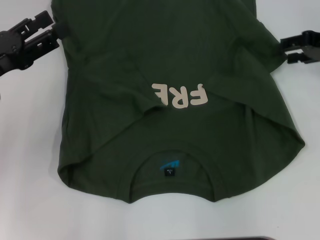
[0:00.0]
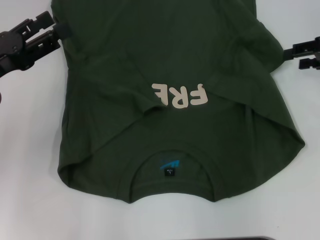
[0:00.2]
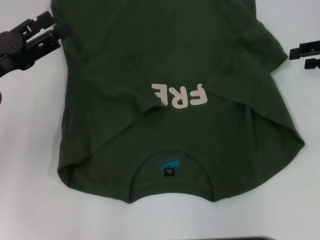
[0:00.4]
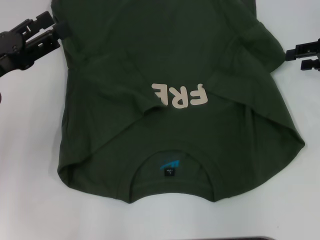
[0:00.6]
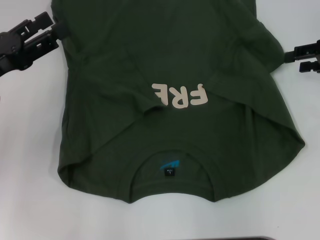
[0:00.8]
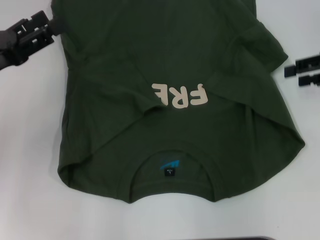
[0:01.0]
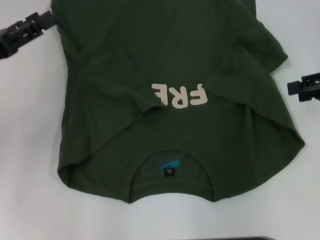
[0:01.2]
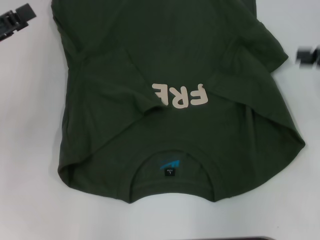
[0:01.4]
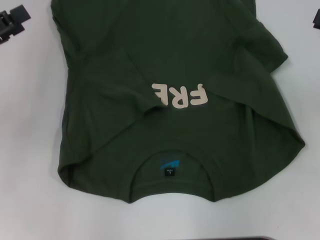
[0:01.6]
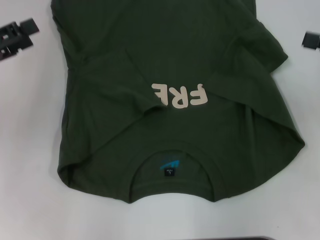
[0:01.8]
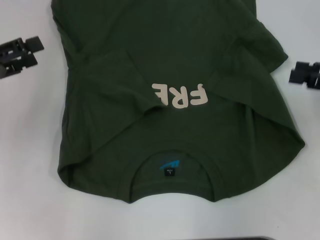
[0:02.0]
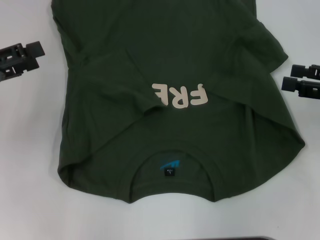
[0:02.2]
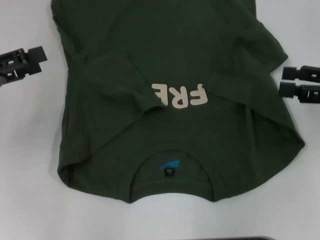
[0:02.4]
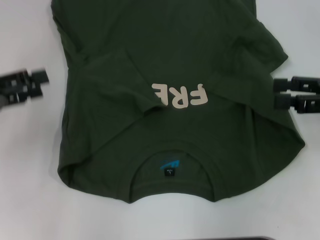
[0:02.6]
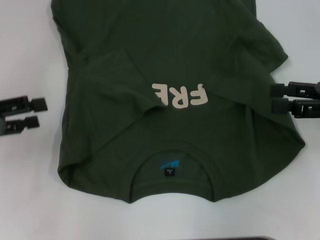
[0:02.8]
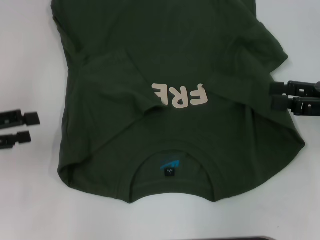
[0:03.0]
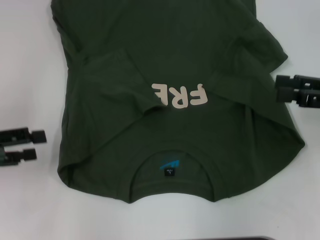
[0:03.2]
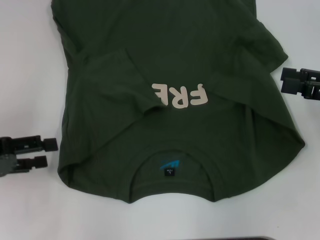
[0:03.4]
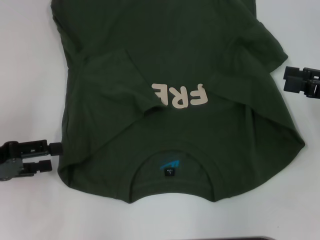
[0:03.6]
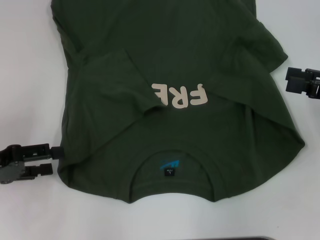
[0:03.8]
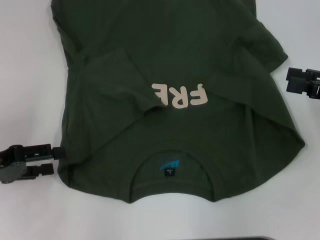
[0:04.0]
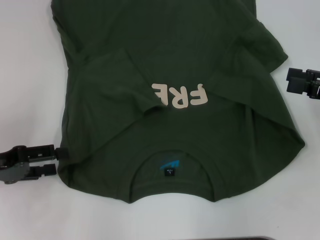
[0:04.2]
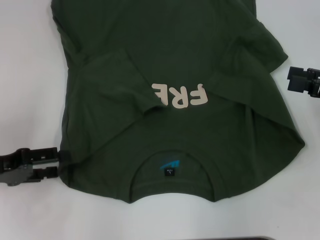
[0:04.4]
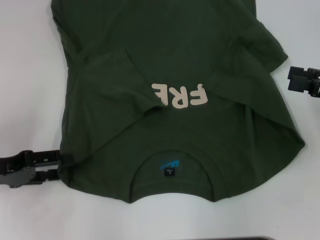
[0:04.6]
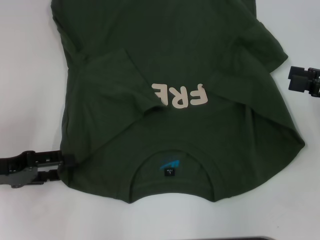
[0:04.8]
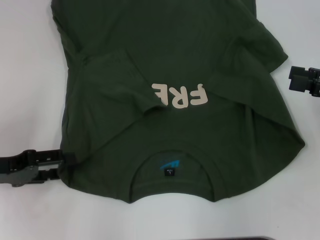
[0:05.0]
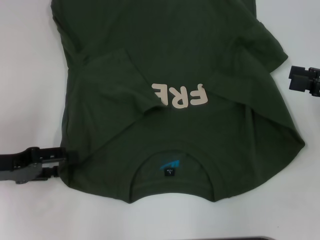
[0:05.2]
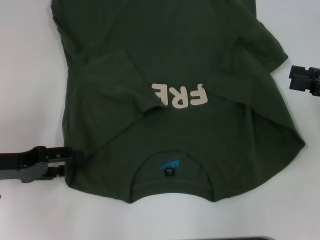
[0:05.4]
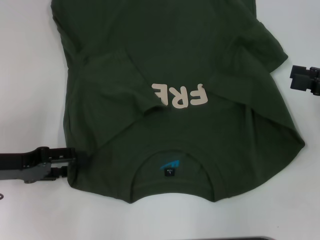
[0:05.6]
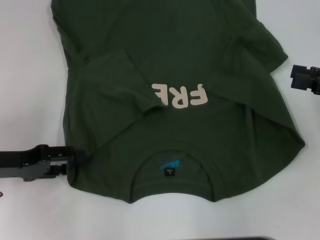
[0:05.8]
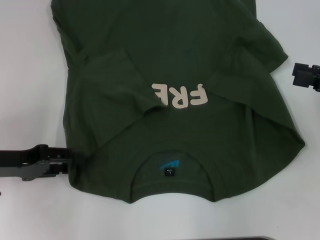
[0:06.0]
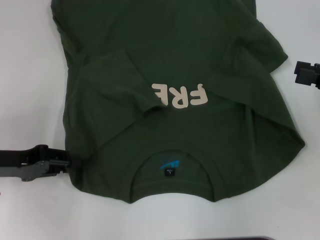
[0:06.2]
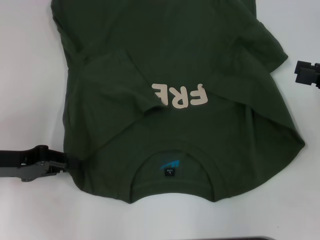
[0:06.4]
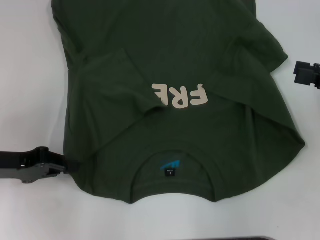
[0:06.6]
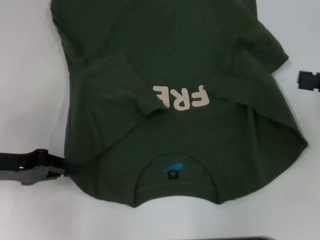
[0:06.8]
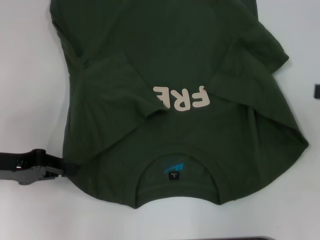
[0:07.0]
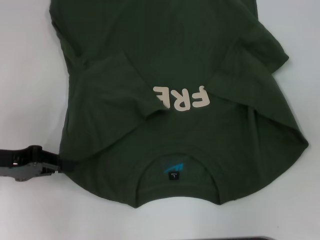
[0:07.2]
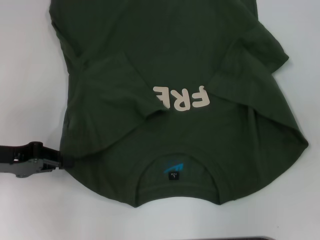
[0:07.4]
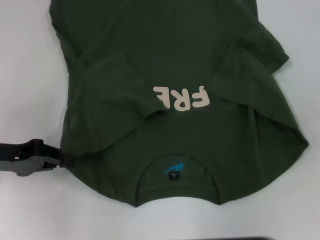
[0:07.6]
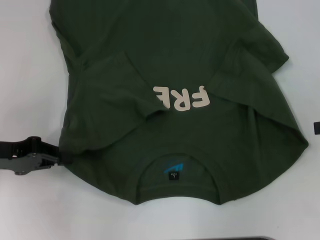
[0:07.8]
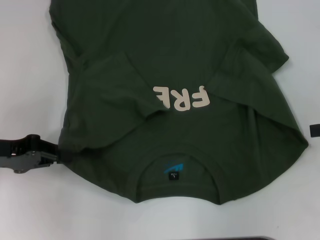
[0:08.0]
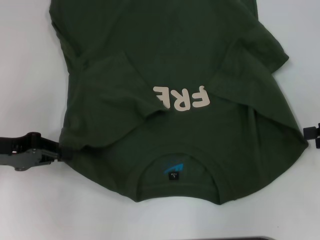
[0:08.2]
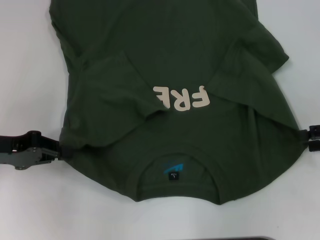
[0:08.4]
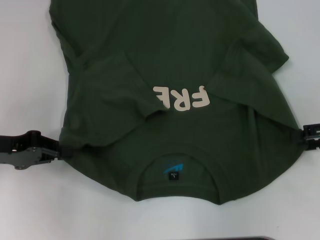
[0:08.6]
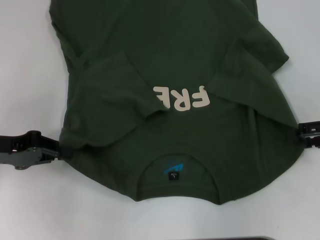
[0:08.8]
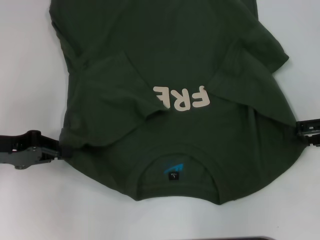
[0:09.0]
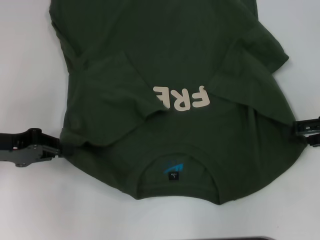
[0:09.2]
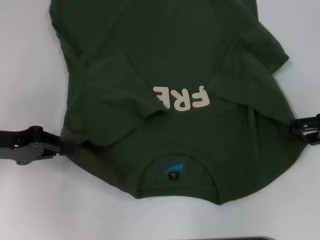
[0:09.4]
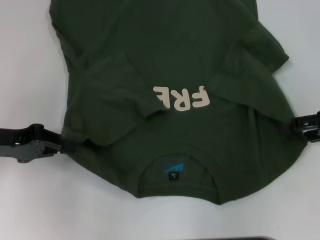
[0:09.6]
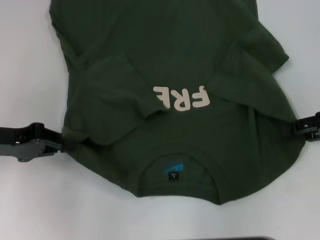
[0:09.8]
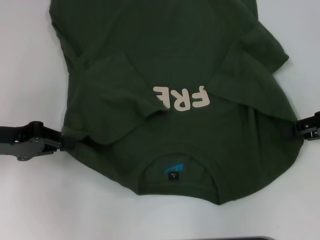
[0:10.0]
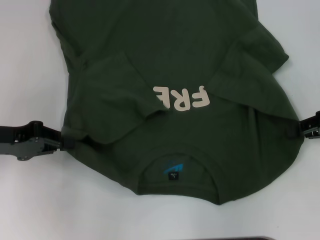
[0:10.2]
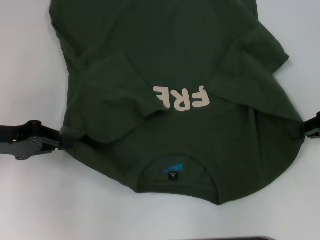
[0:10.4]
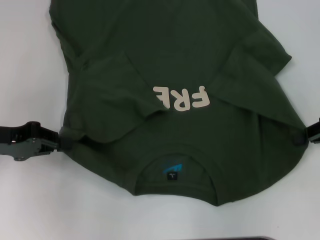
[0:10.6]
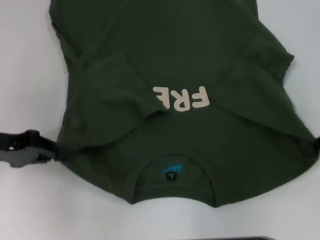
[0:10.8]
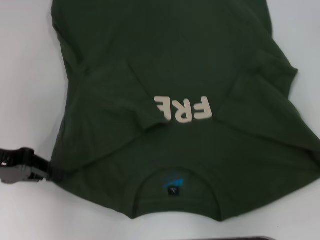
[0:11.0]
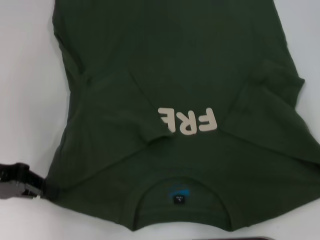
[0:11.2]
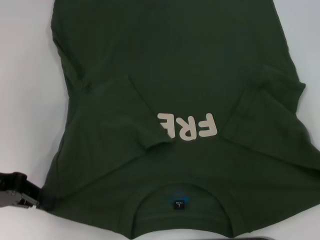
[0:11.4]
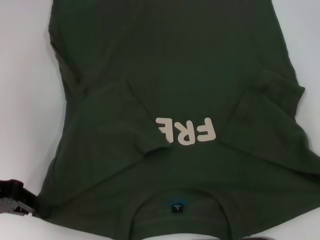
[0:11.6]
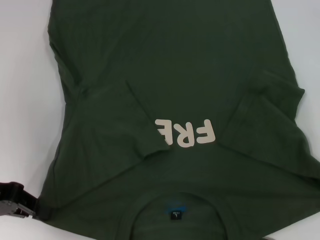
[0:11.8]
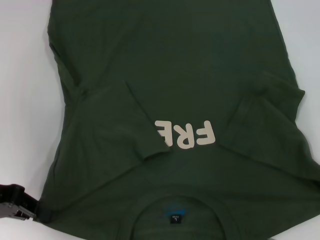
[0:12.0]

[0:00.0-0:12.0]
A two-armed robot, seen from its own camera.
Step, 0:00.0 to 0:06.4: Grab the bottom left corner with your left hand.
Step, 0:06.6 to 0:10.4: Grab the bottom right corner with your right hand.
0:00.0 to 0:01.6: The right gripper goes approximately 10 cm backward. The left gripper changes place by roughly 5 cm.
0:01.6 to 0:03.0: The right gripper ends up approximately 5 cm from where it was; the left gripper ends up about 5 cm from where it was.
0:03.0 to 0:04.4: The left gripper ends up some 5 cm from where it was.
0:04.4 to 0:06.0: The grippers make only small movements.
0:06.0 to 0:07.6: The right gripper heads to the right, covering about 5 cm. The left gripper closes up.
0:07.6 to 0:09.0: The right gripper changes place by approximately 5 cm.
0:09.0 to 0:10.4: The right gripper closes up.

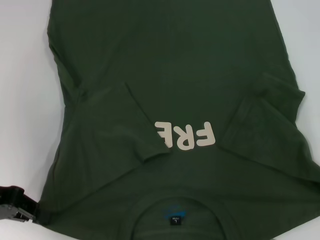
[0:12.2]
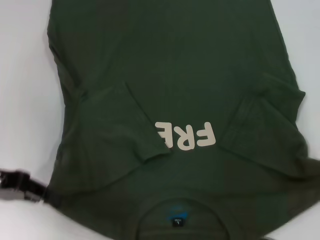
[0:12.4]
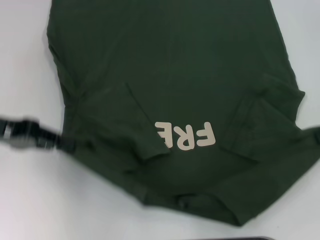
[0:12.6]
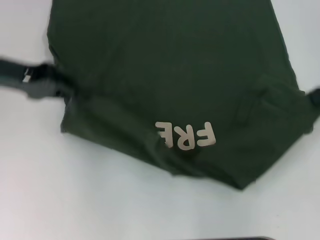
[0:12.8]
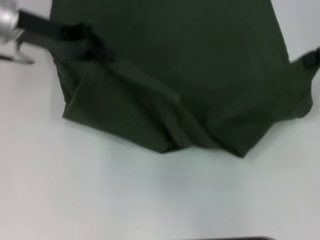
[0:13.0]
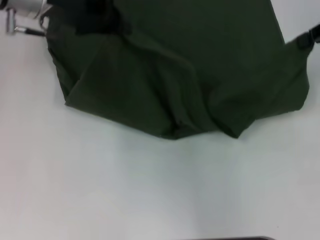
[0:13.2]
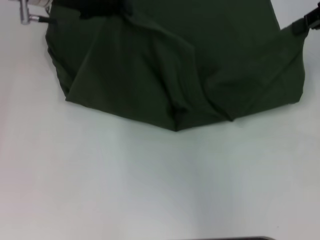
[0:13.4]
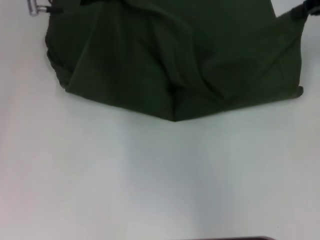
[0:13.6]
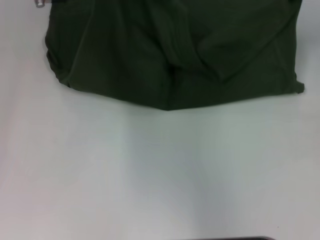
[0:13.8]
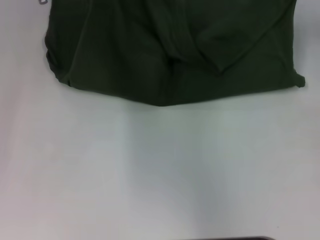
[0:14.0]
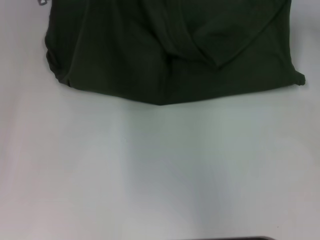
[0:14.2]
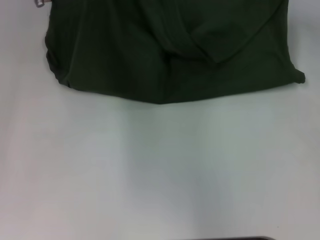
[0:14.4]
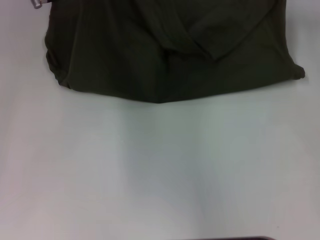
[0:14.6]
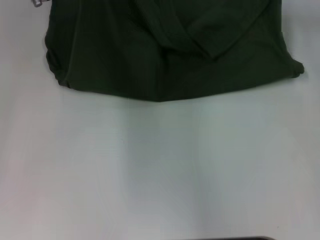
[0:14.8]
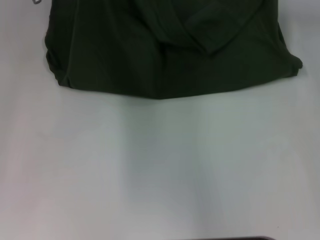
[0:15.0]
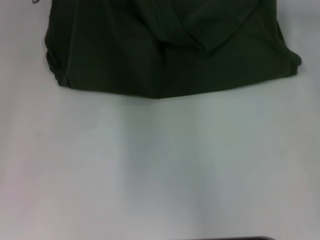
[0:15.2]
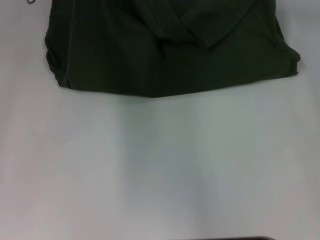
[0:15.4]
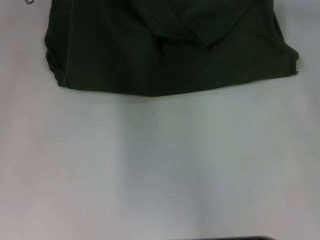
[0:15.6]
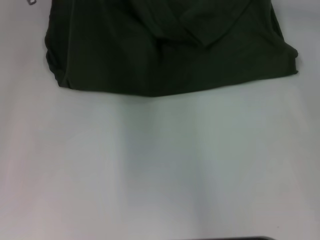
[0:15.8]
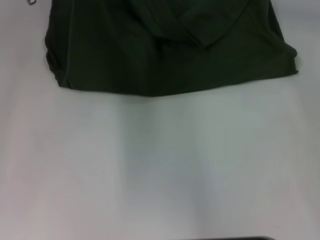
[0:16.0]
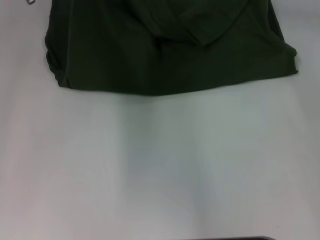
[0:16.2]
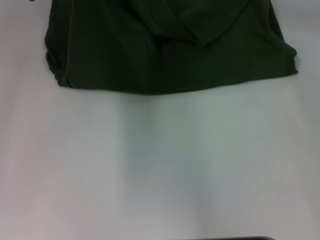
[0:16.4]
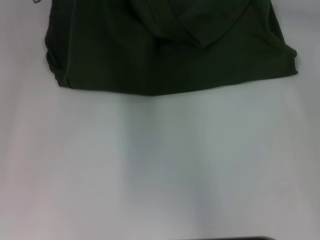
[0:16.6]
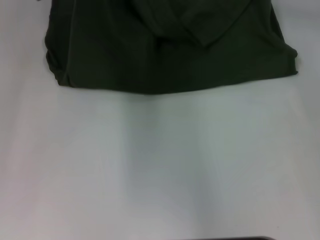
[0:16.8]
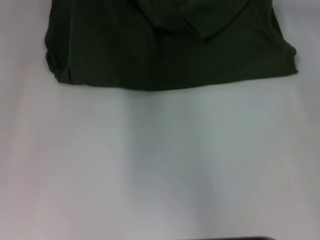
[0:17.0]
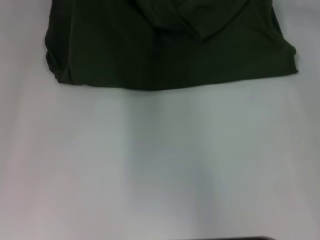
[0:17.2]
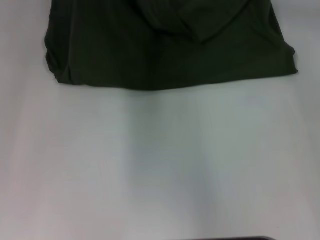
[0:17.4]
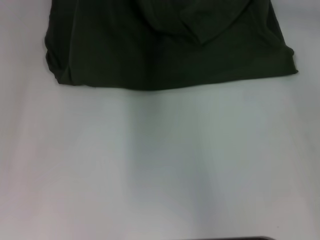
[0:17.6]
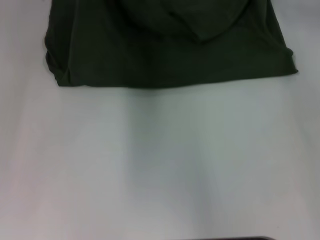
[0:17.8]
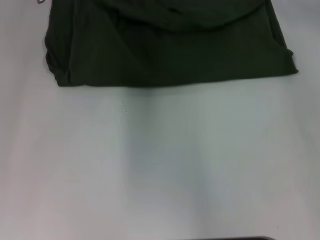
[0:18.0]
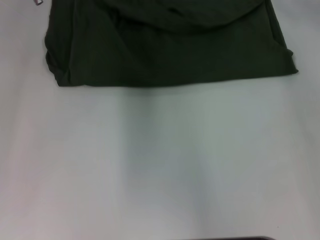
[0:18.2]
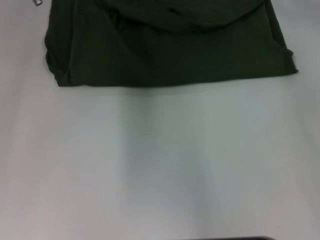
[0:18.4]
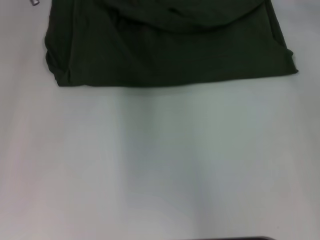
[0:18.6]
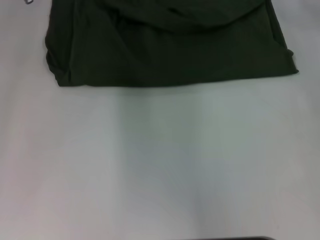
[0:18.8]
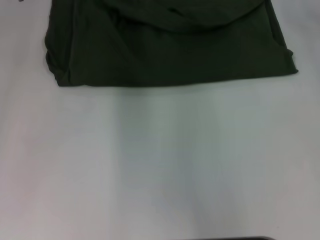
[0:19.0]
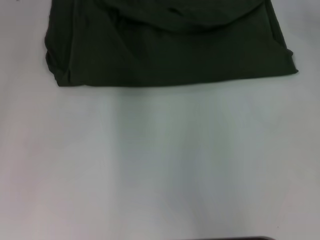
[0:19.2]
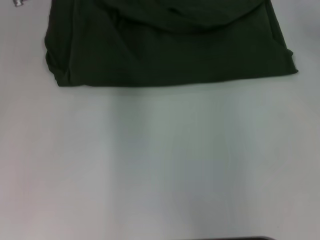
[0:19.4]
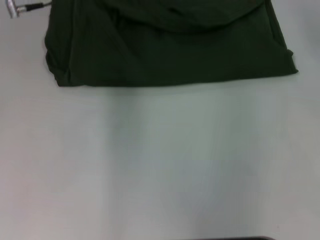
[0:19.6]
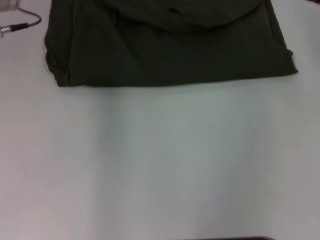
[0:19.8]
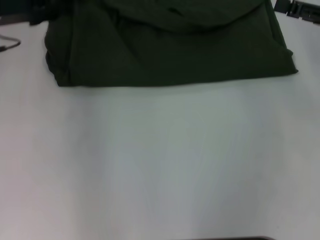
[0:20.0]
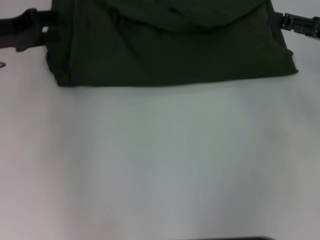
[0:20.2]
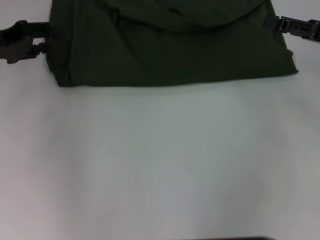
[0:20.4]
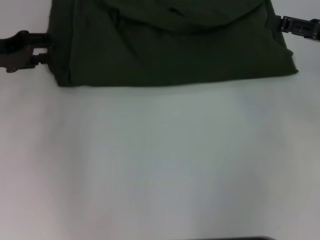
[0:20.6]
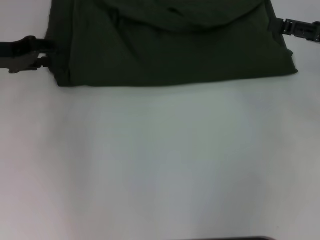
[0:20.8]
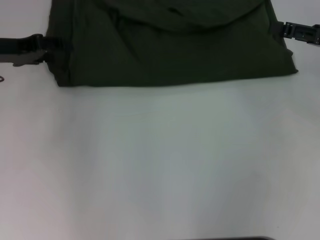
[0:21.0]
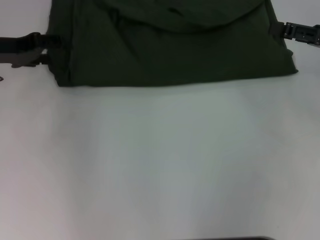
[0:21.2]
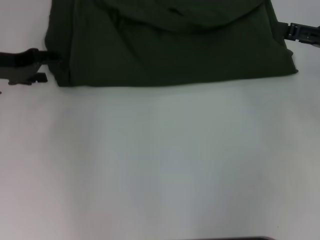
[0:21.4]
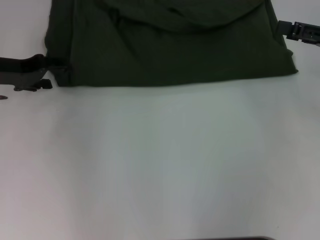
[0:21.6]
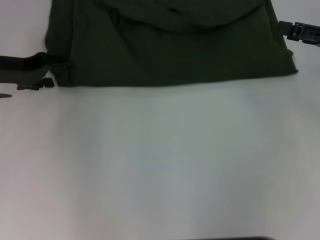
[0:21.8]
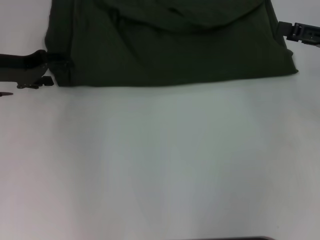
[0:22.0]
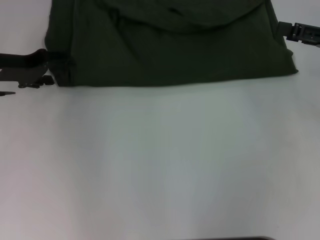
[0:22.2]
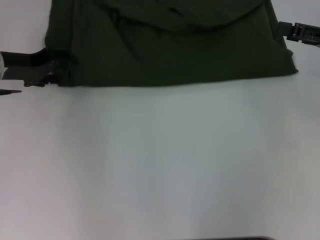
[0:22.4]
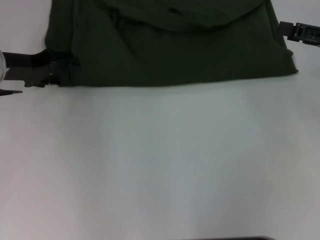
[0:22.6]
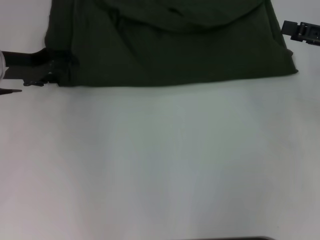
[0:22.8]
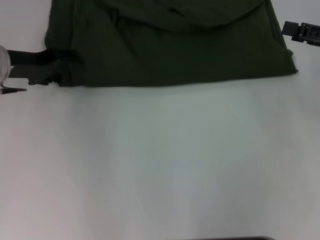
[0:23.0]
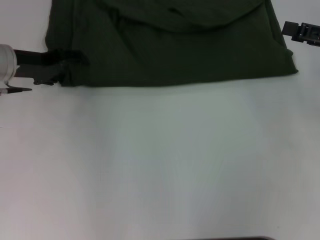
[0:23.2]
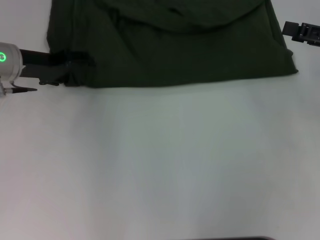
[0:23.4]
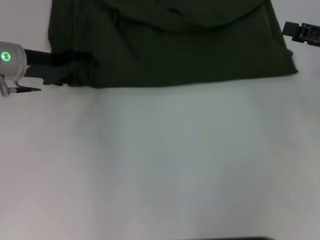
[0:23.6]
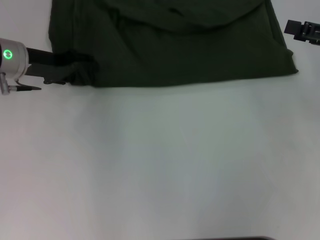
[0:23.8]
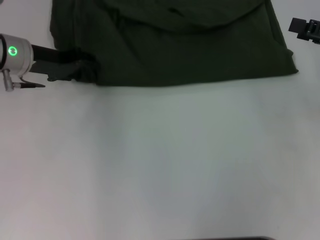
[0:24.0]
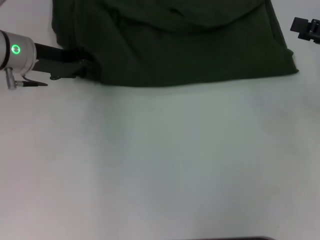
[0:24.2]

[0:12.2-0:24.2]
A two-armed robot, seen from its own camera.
Step, 0:12.2 to 0:18.0: Fold the clothes with your left hand.
Step, 0:12.2 to 0:18.0: Fold the clothes with your right hand.
0:12.2 to 0:13.8: The left gripper travels forward, to the right and upward by approximately 25 cm; the right gripper travels forward and upward by approximately 20 cm.
0:13.8 to 0:15.2: The right gripper shifts about 5 cm to the left.
0:15.2 to 0:16.6: The grippers make only small movements.
0:16.6 to 0:18.2: The left gripper opens; the right gripper opens up.
0:18.2 to 0:19.8: The left gripper moves backward, approximately 5 cm; the right gripper heads backward and to the right, covering roughly 15 cm, and opens.
0:19.8 to 0:21.2: The left gripper shifts some 10 cm to the left and downward.
0:21.2 to 0:22.6: The grippers make only small movements.
0:22.6 to 0:24.2: There are only small adjustments of the grippers.
